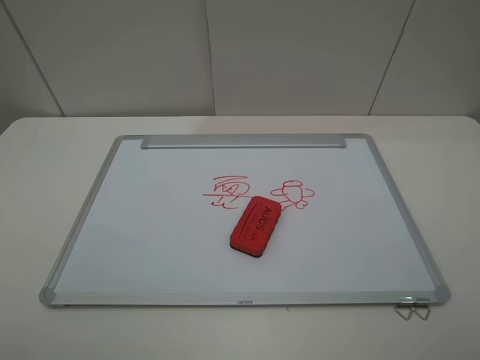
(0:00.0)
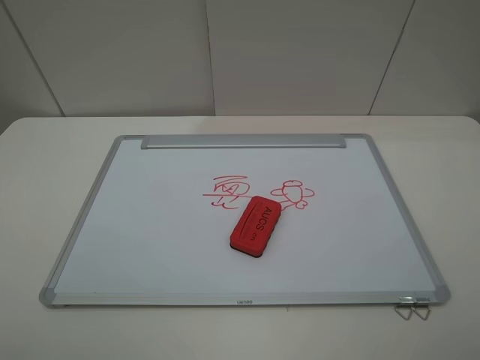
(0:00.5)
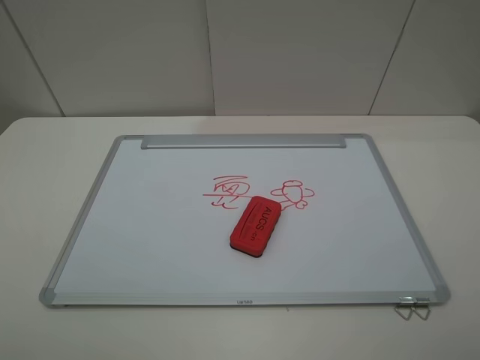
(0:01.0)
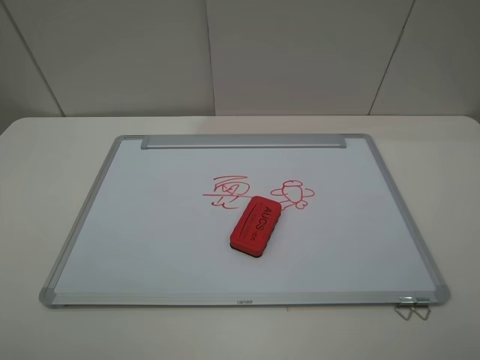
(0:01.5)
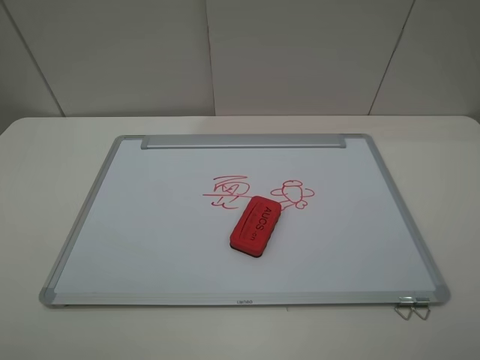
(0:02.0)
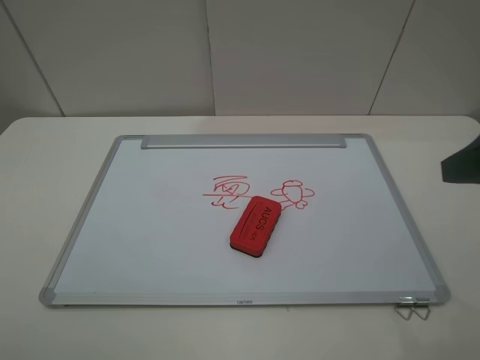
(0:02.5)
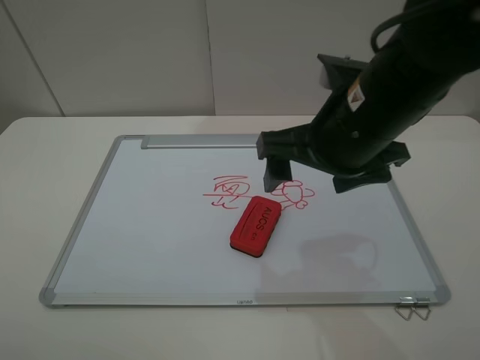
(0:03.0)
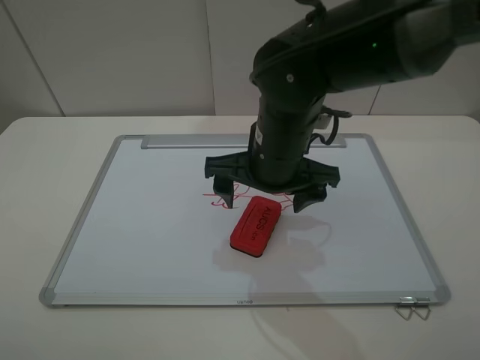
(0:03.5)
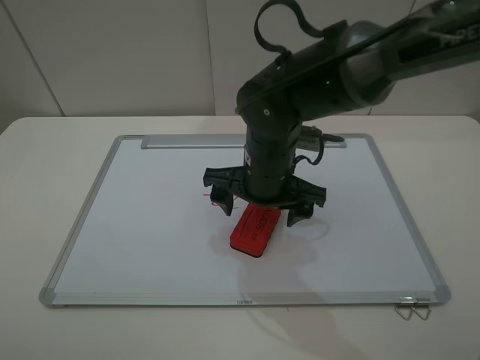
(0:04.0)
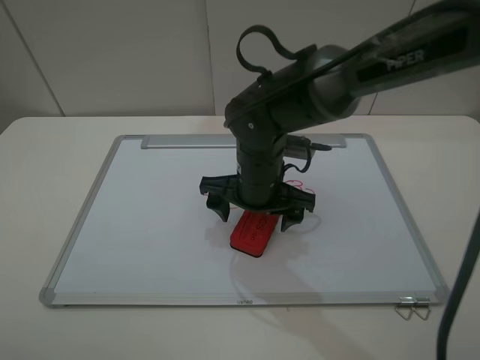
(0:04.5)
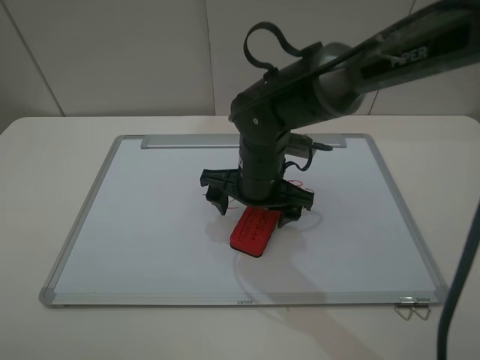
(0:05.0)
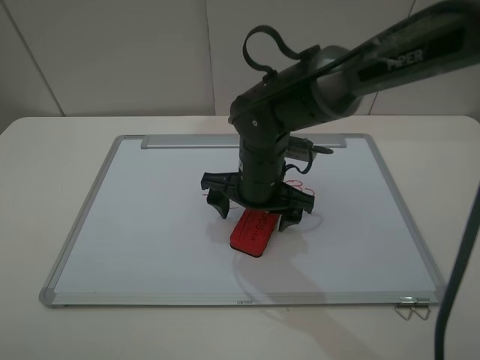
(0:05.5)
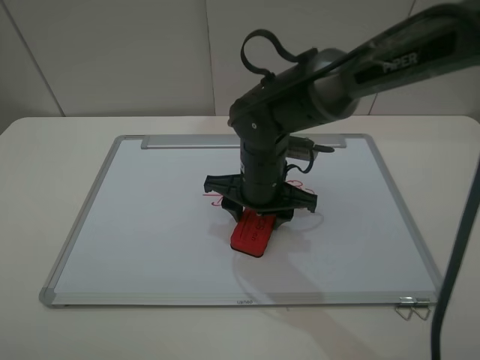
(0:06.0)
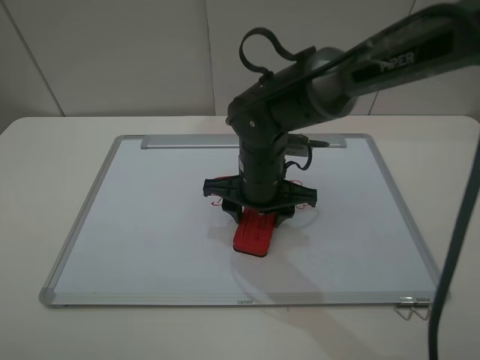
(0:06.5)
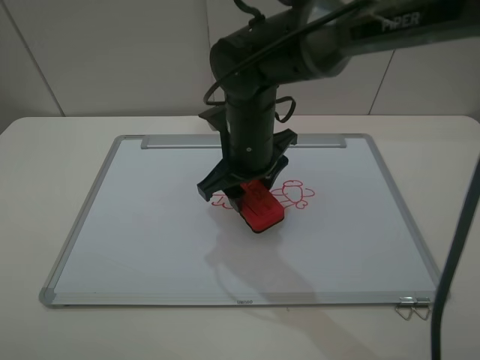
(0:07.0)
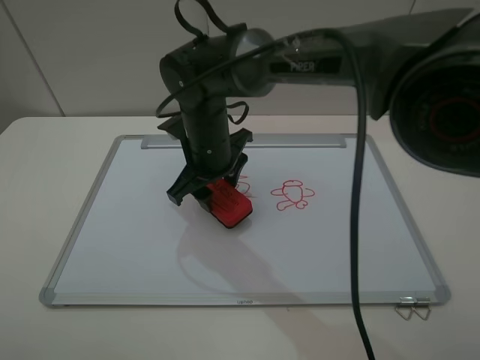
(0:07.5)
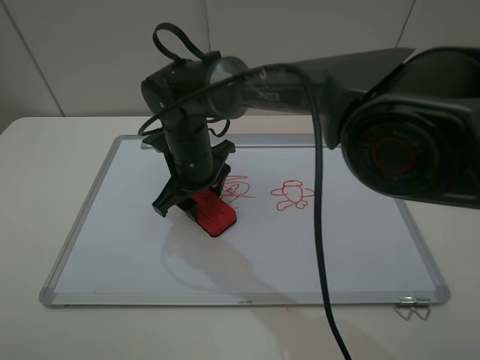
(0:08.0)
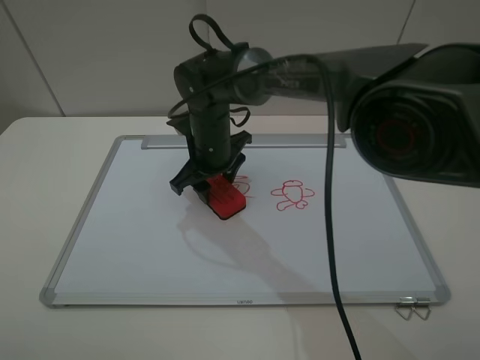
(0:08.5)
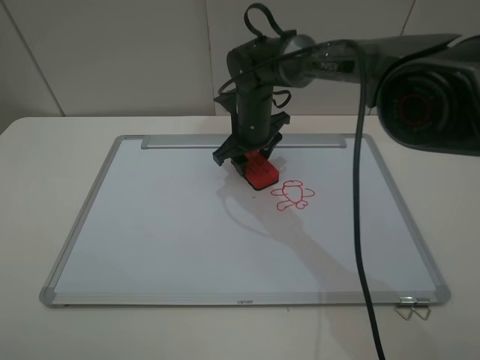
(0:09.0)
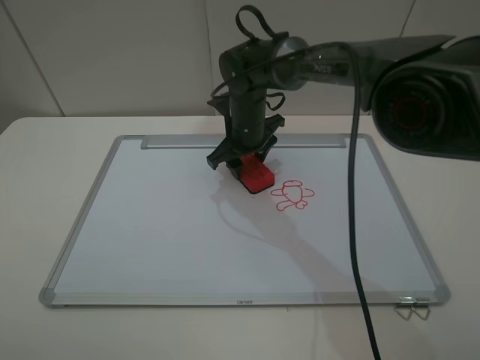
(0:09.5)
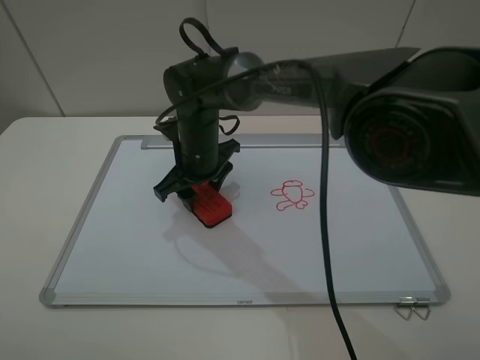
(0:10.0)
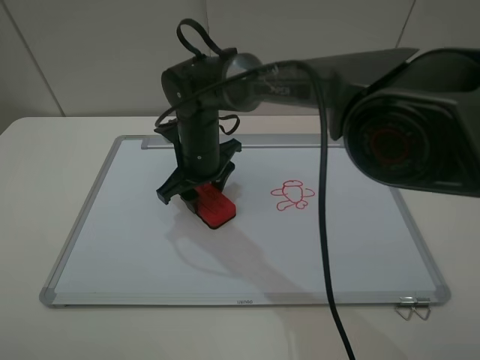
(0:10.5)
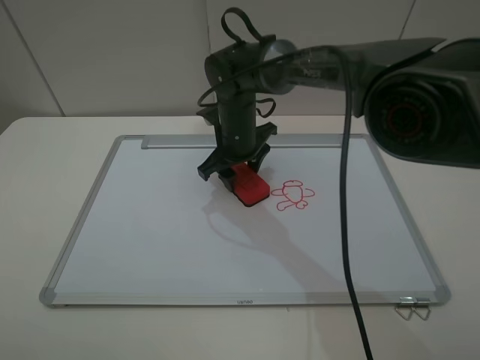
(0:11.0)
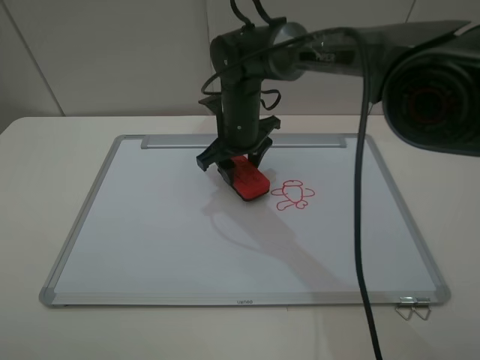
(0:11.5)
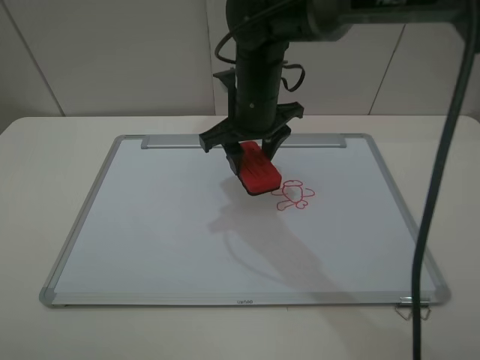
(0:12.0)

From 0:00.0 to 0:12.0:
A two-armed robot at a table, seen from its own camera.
Step, from 0:00.0 to 0:06.0: Grasp the eraser with the right gripper.
Step, from 0:06.5 to 0:11.5: Grasp the eraser and wipe the blackboard with the right gripper.
From 0:00.0 to 0:02.0: Neither gripper changes place.
From 0:02.0 to 0:04.0: The right gripper is displaced forward, to the left and downward by roughly 40 cm.
From 0:04.0 to 0:06.0: The right gripper closes.
From 0:06.0 to 0:08.0: The right gripper moves to the left, roughly 10 cm.
From 0:08.0 to 0:10.0: The right gripper goes to the right and returns, approximately 10 cm each way.
From 0:10.0 to 0:12.0: The right gripper travels to the right and upward by approximately 10 cm.

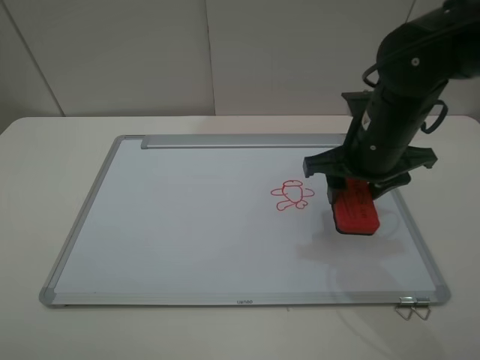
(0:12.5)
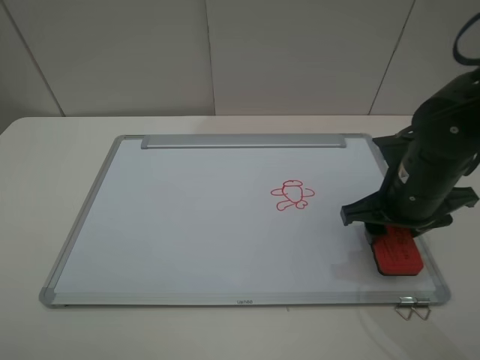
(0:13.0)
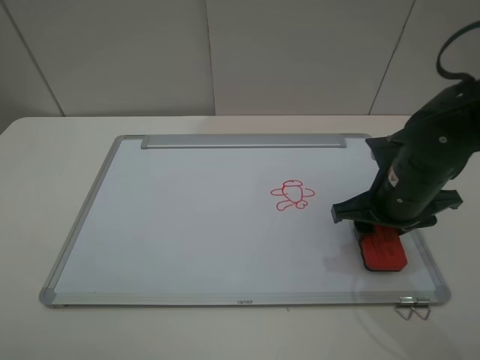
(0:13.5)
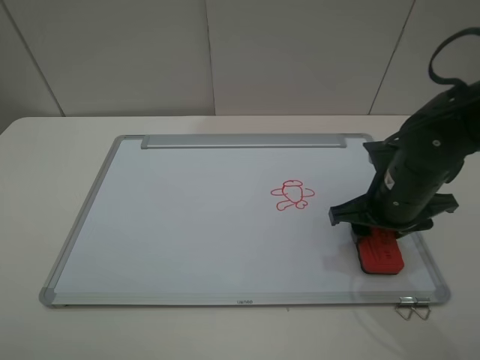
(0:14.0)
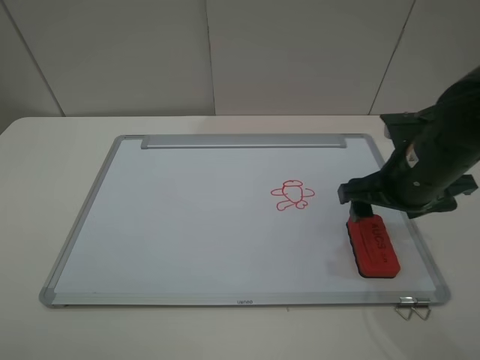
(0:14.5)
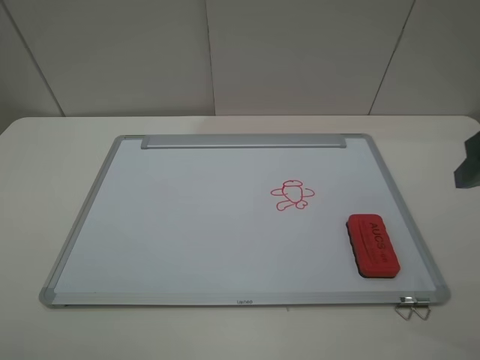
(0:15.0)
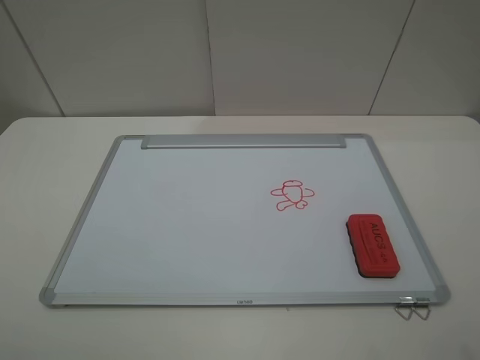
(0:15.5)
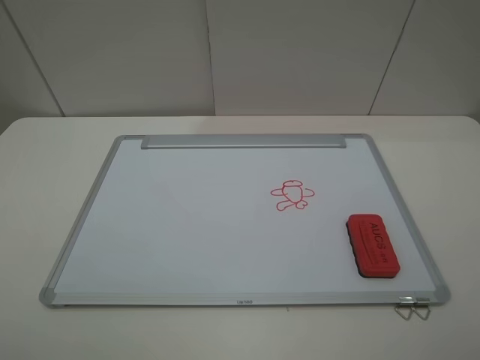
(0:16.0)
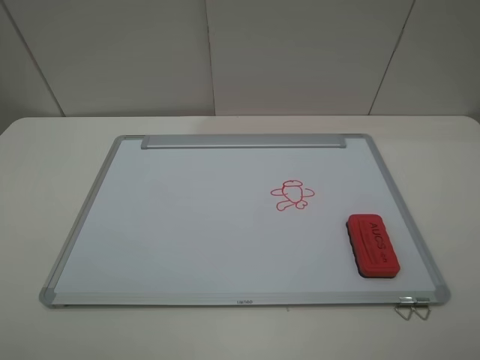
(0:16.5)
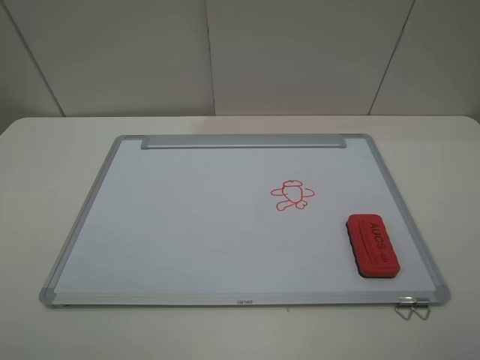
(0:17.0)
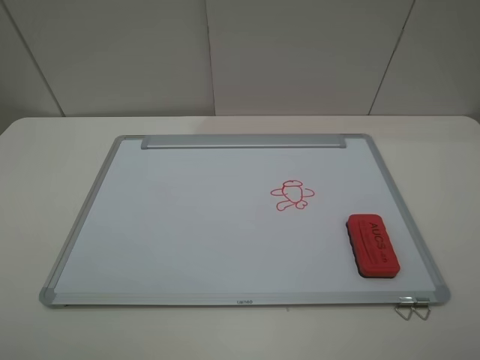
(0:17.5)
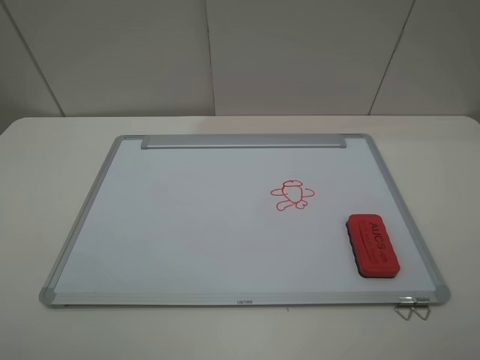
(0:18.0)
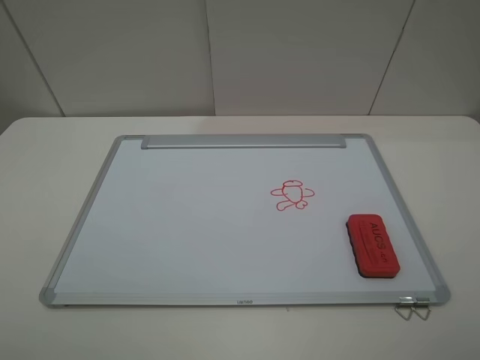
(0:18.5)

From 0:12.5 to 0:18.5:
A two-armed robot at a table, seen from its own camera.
Step, from 0:12.5 to 0:14.5: Place the eraser with the right gripper.
From 0:12.5 to 0:14.5: The right gripper changes place by roughly 5 cm, and opens its fingers.
From 0:14.5 to 0:16.5: The right gripper heads backward and upward, covering approximately 25 cm.
From 0:16.5 to 0:18.5: Both grippers stay put.
